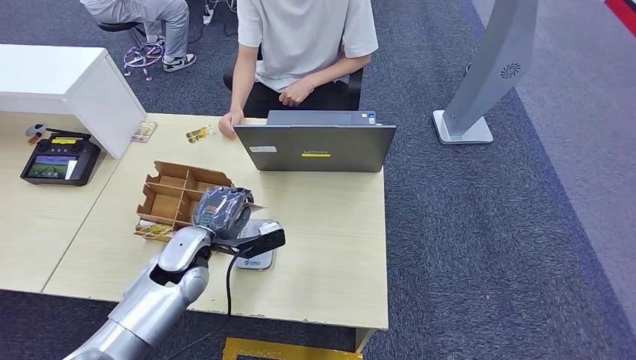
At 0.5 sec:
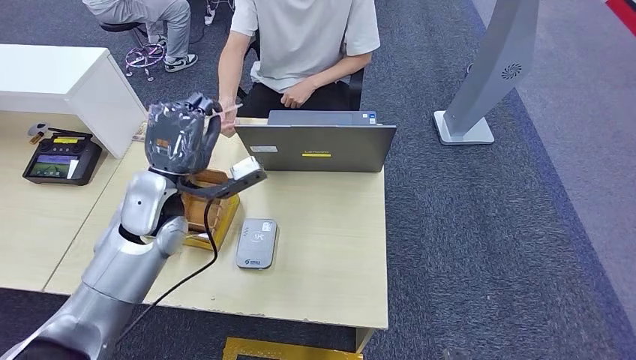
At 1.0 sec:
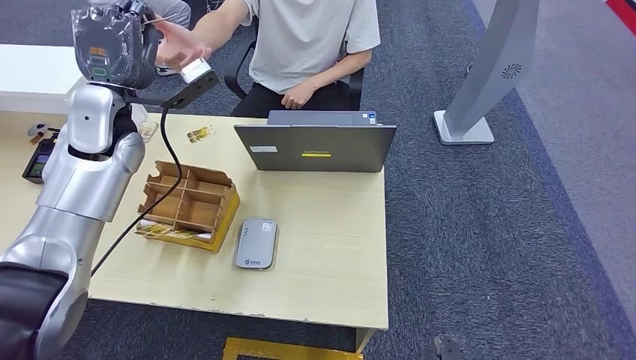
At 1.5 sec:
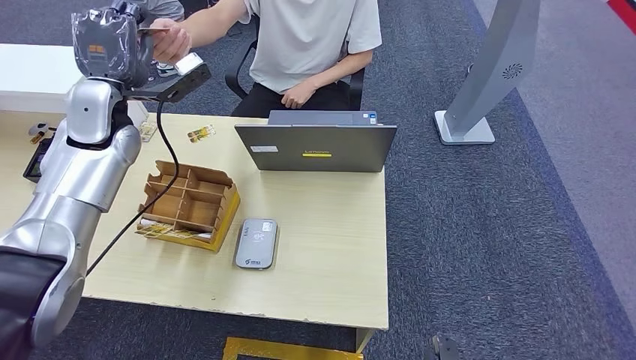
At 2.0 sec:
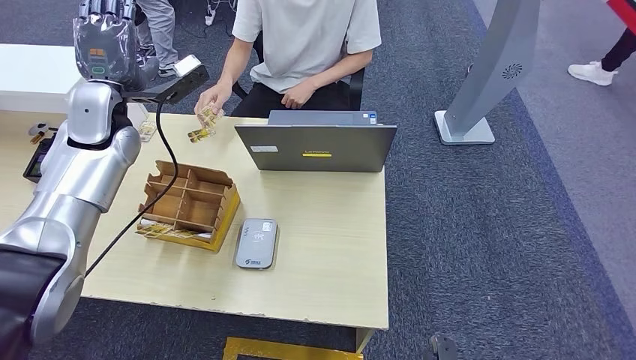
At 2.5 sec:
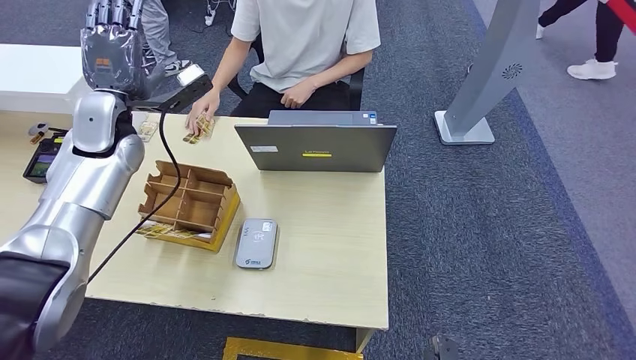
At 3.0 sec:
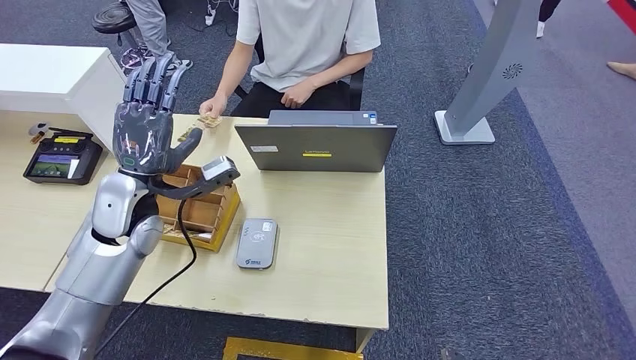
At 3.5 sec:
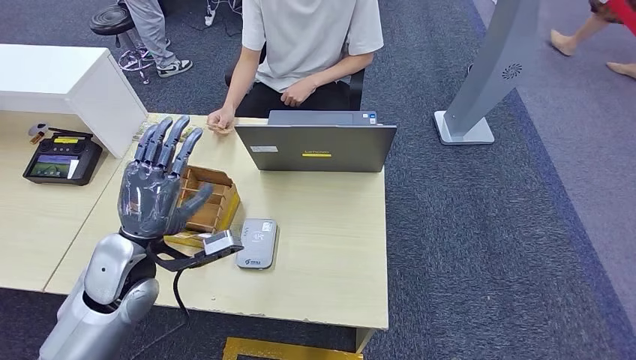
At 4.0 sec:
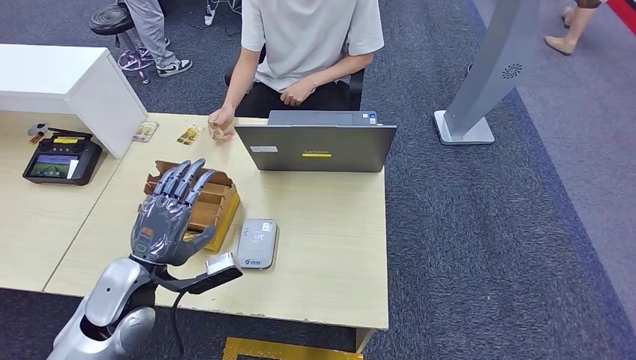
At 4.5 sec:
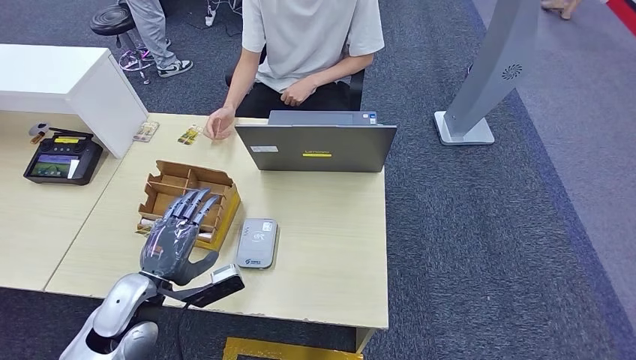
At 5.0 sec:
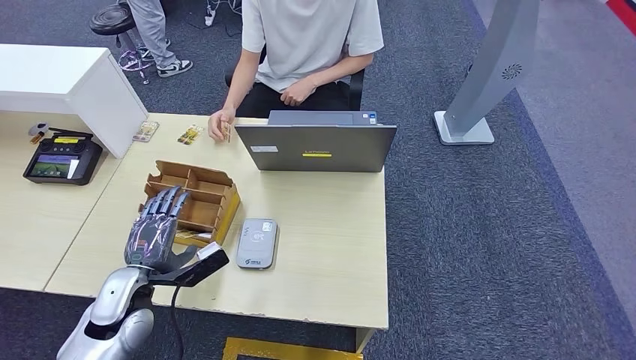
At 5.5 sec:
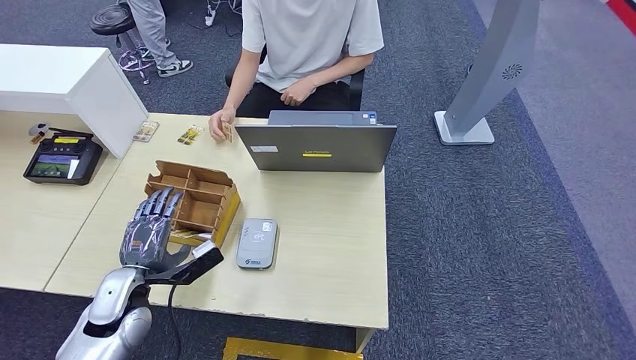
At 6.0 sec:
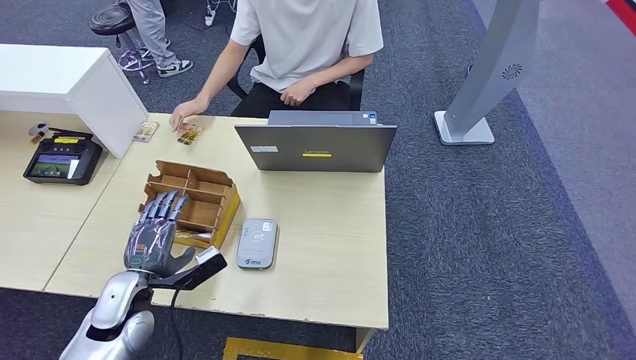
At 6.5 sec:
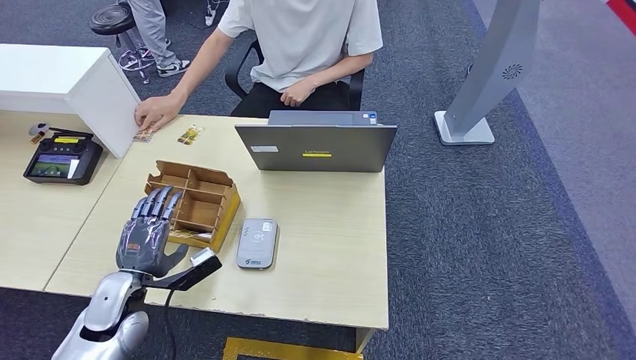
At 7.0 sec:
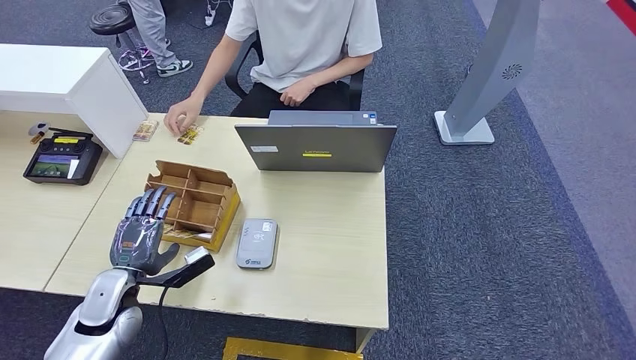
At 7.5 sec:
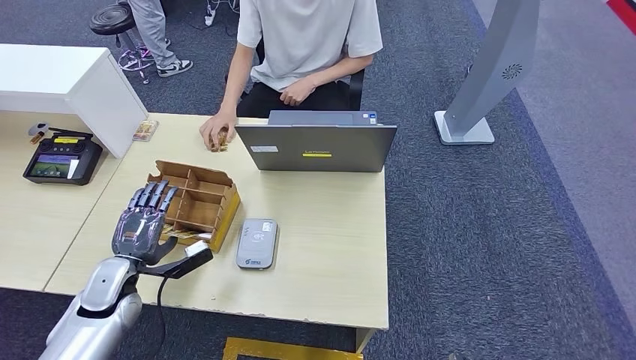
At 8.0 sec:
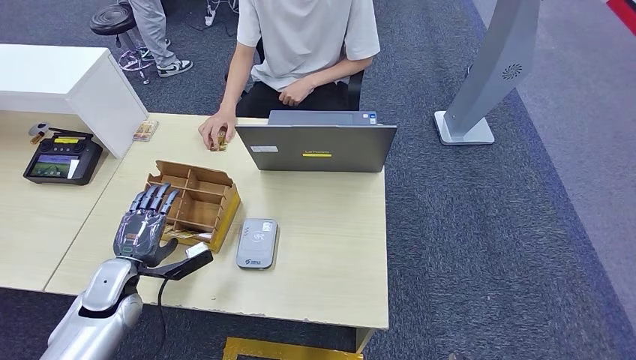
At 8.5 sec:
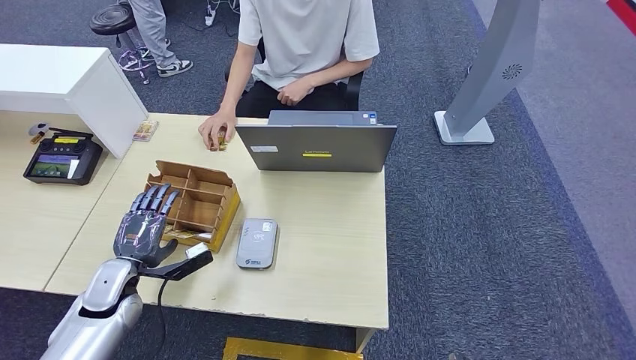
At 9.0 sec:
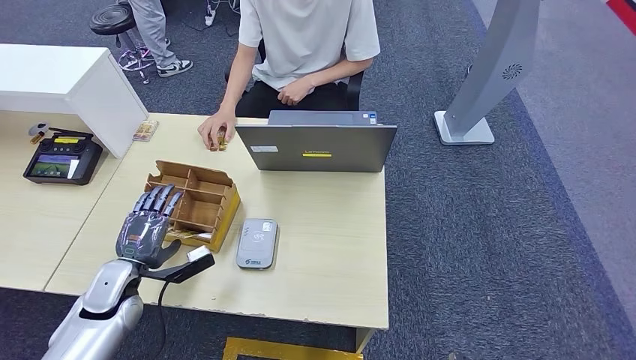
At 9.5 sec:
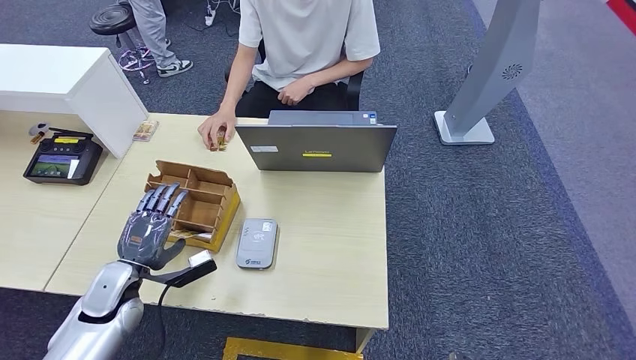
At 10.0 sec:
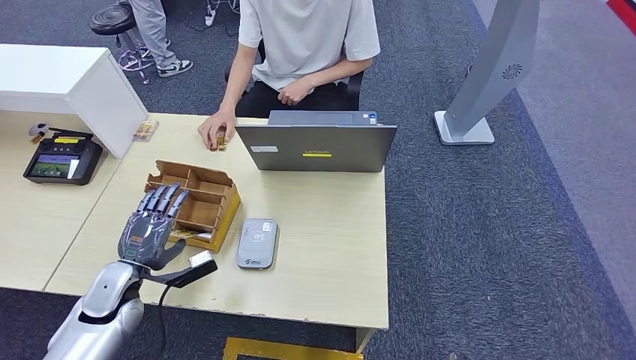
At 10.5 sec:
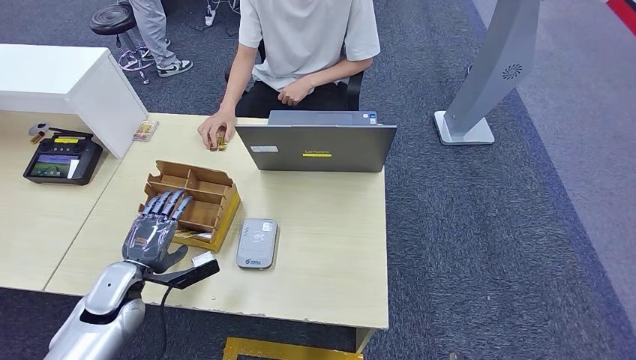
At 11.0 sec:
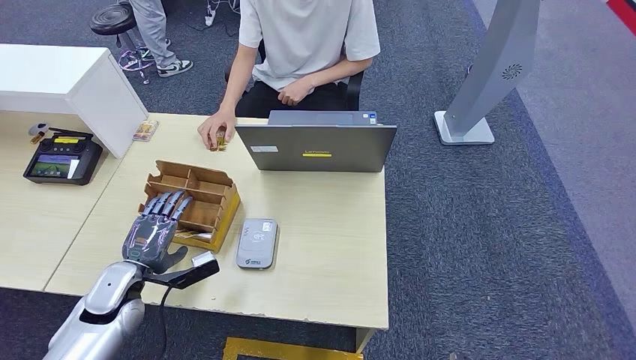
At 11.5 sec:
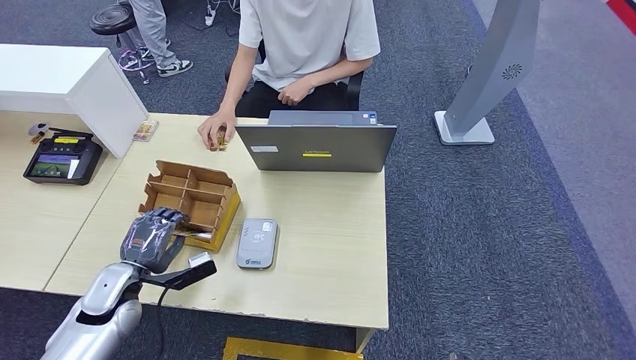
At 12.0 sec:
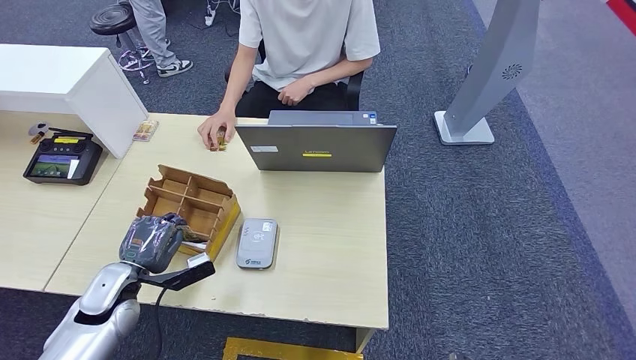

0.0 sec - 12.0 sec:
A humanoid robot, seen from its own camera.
Step, 0.5 sec - 2.0 sec: Hand the ID card to the person.
4.0 sec - 6.0 sec: The left hand goes approximately 10 cm downward.
6.0 sec - 8.0 sec: The left hand shifts by about 5 cm.
8.0 sec - 12.0 sec: There are only small adjustments of the hands.

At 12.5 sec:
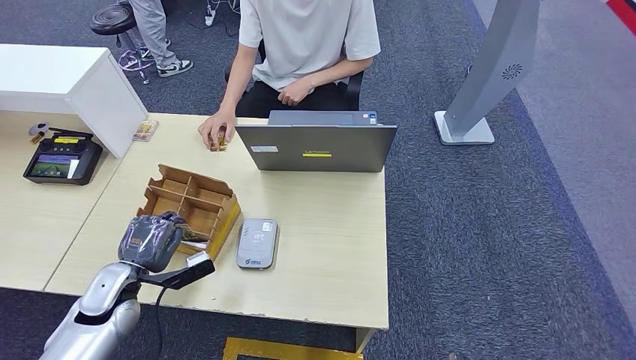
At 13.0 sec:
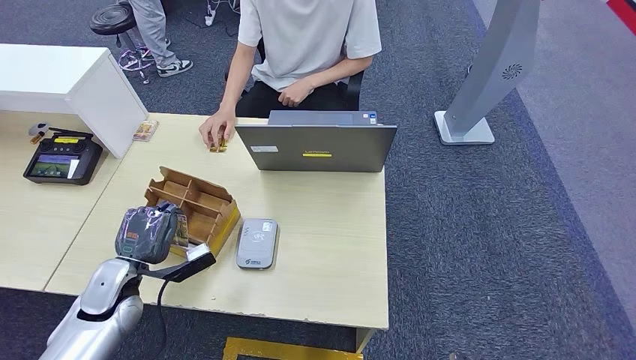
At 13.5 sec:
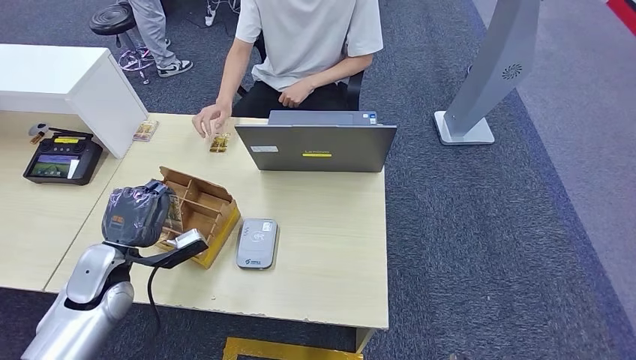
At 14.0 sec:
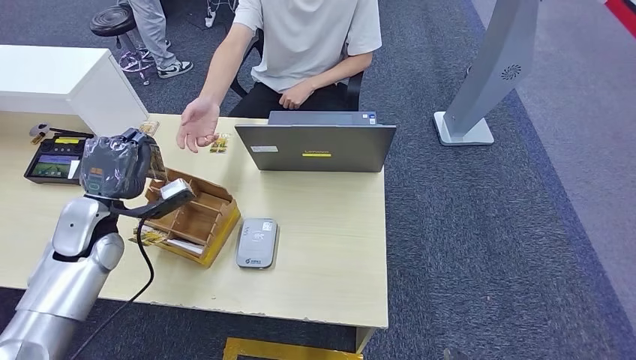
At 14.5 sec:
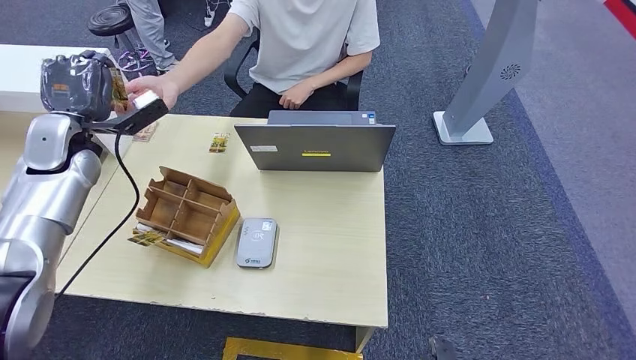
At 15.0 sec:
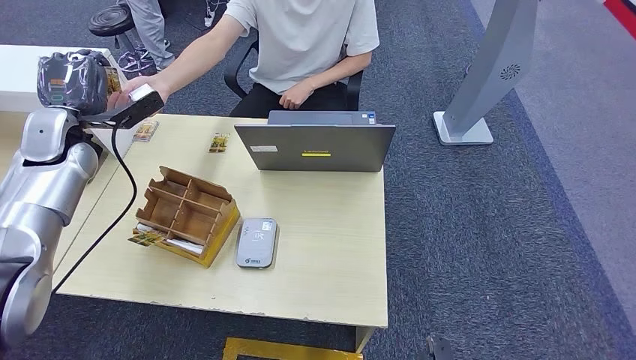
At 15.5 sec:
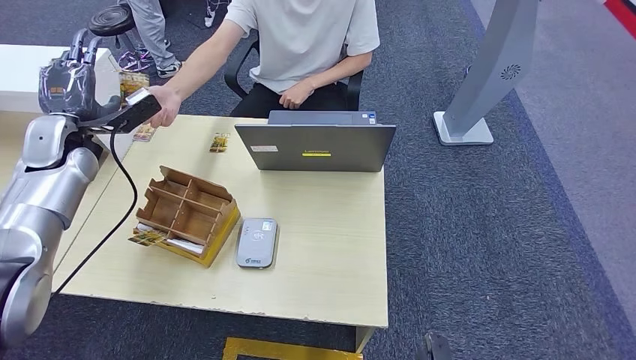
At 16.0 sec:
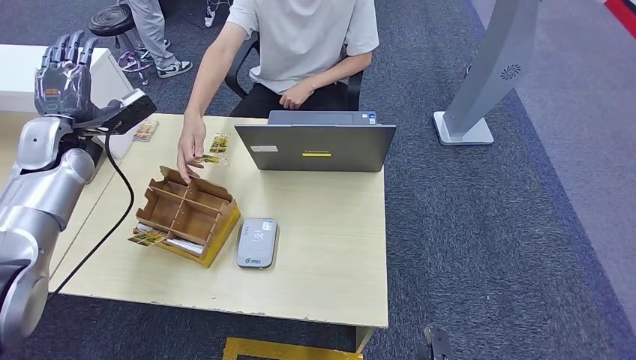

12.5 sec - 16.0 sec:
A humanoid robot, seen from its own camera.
Step, 14.5 sec - 16.0 sec: Hand the room key to the person.
12.5 sec - 14.5 sec: The left hand goes some 25 cm upward and forward.
14.5 sec - 16.0 sec: The hands move only a little.
